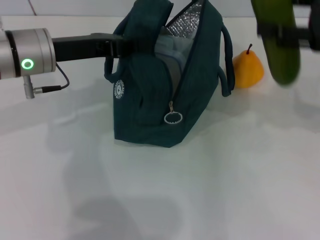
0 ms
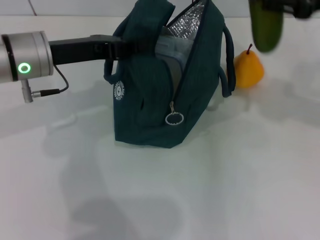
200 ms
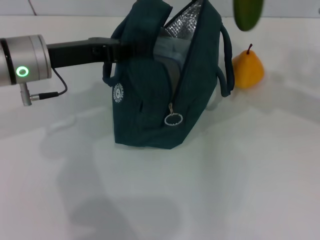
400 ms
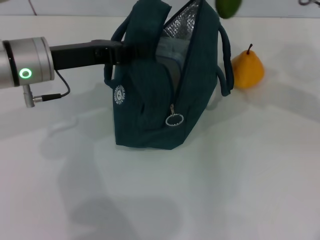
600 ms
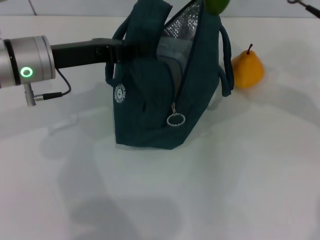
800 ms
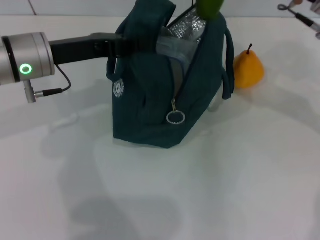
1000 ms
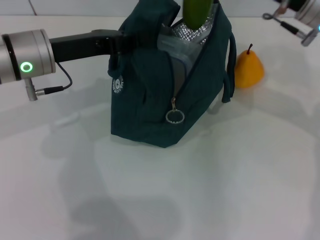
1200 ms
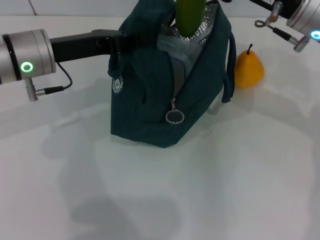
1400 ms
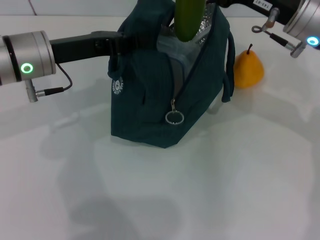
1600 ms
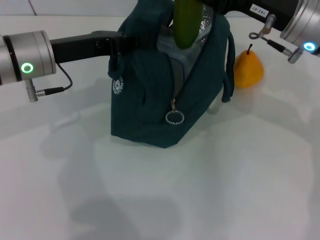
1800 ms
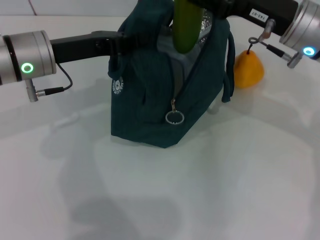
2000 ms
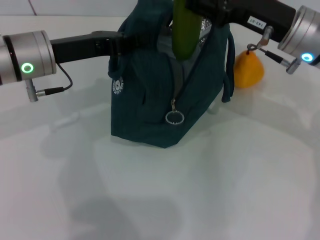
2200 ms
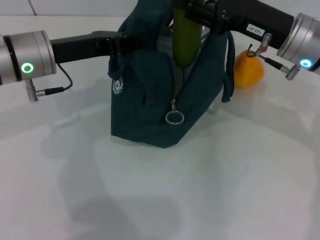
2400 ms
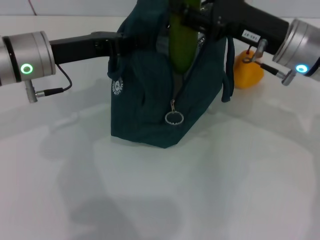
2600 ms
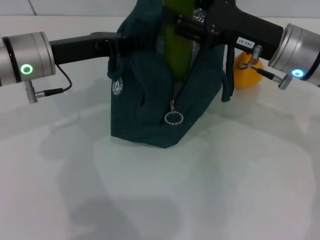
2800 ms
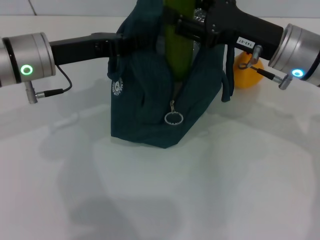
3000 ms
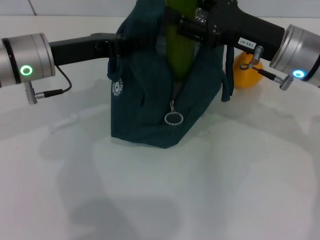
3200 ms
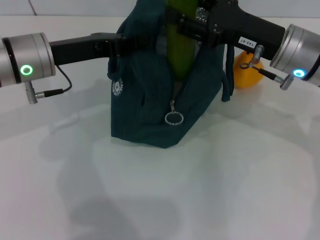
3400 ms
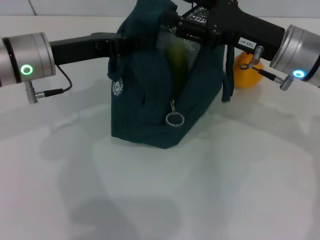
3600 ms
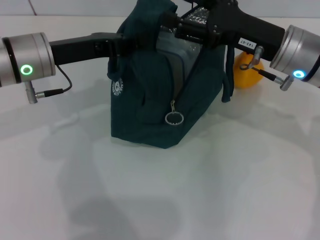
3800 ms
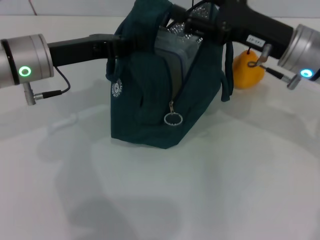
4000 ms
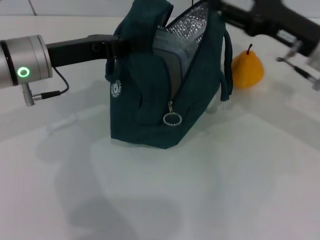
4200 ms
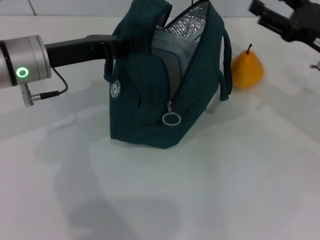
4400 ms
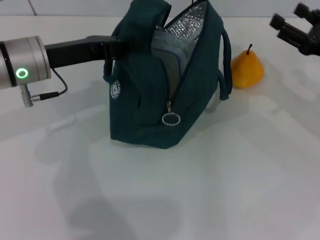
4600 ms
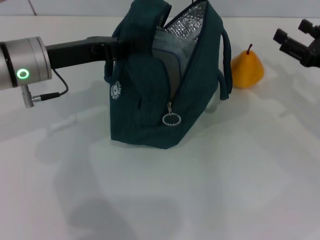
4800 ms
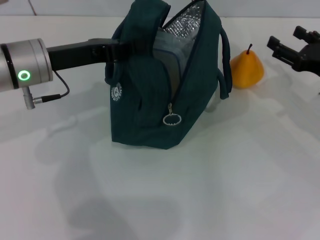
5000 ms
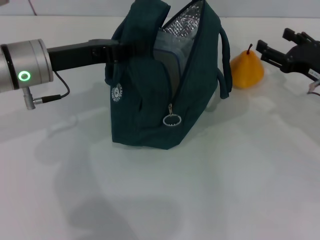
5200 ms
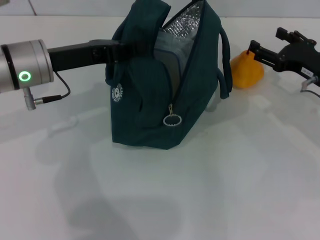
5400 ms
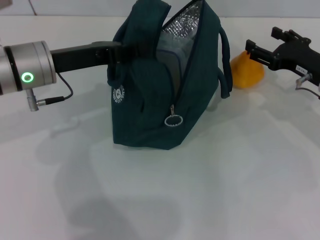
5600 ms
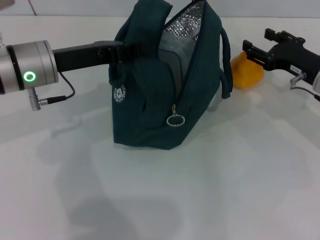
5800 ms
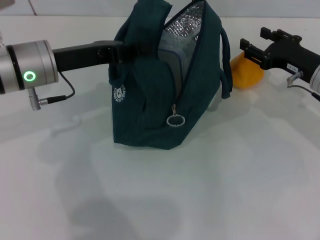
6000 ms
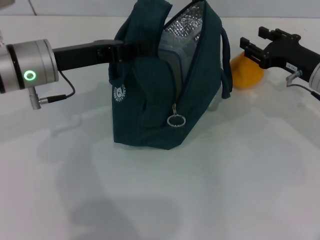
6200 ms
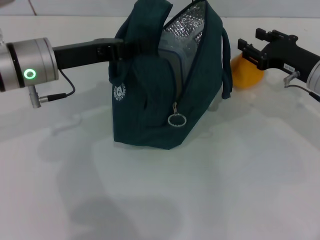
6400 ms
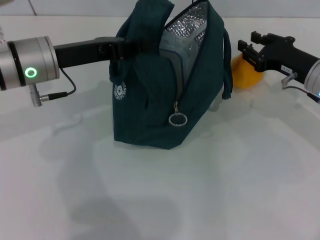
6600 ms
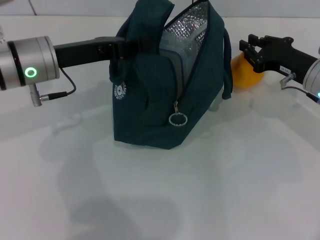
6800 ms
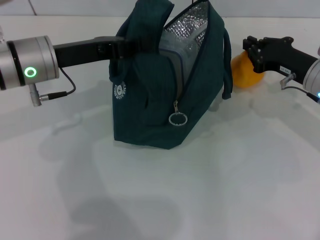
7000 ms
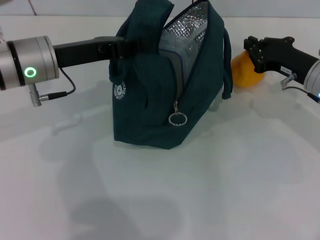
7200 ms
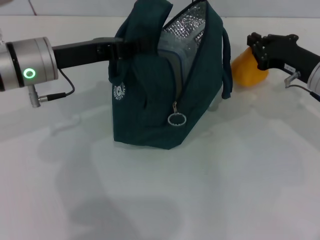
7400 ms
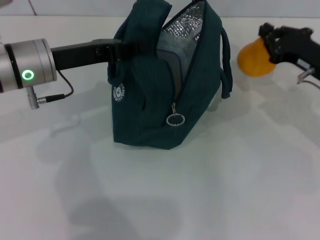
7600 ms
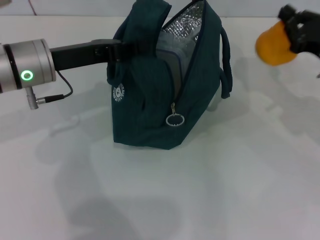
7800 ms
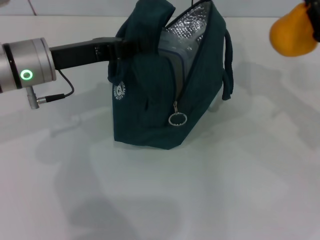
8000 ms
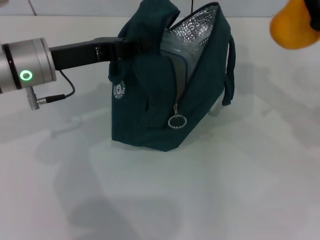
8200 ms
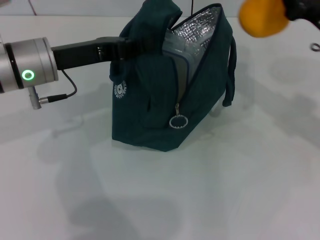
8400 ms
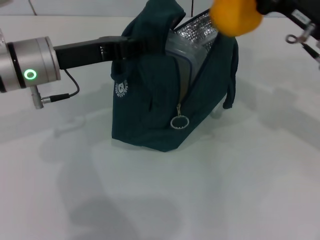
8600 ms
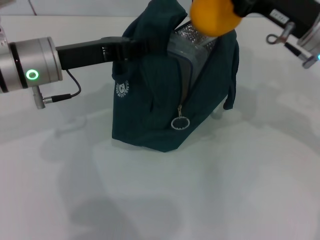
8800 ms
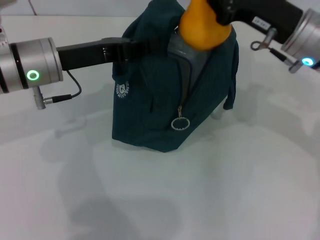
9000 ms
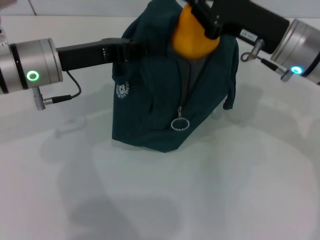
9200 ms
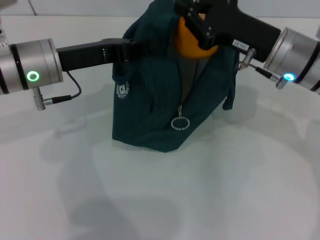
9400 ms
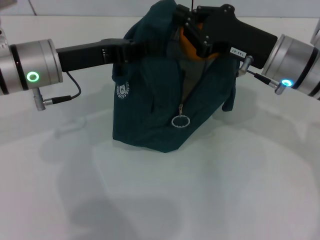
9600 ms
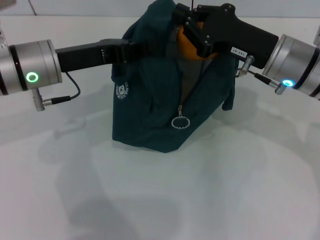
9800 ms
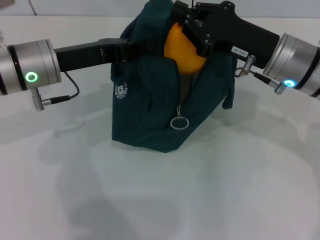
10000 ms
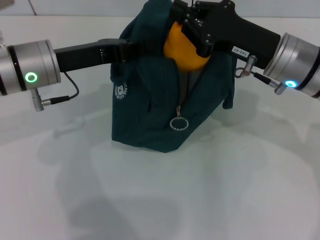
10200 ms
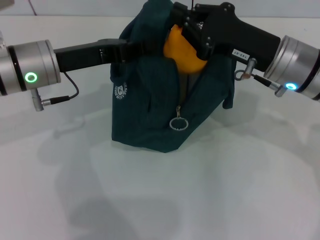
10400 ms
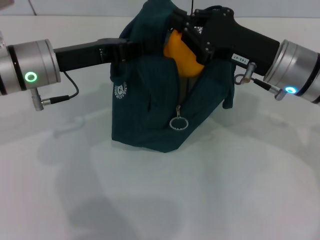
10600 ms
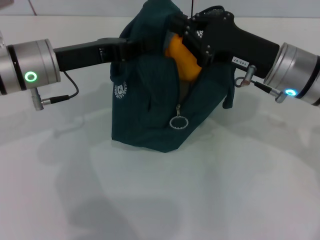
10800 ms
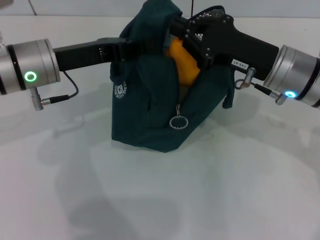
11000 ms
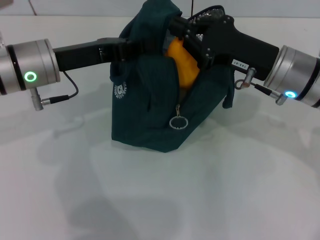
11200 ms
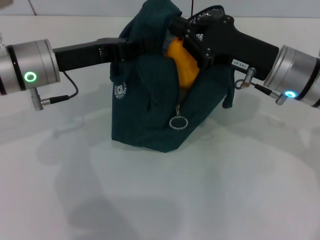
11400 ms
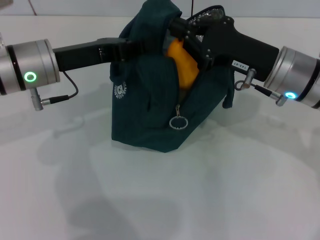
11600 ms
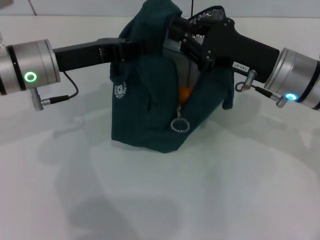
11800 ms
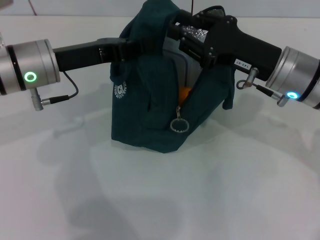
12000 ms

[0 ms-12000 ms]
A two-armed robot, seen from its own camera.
Step, 0 ms to 3800 ms: Put the cucumber into the lunch bag with your right hand.
Step, 4000 ms to 7000 ms: Grab the pear with your right hand.
0 ms to 1600 ms: The right gripper moves to the left, downward and forward, approximately 15 cm.
1600 ms to 3000 ms: The grippers move only a little.
3000 ms to 4400 ms: The right gripper heads to the right, covering about 10 cm.
4400 ms to 6000 ms: The right gripper shifts by about 5 cm.
6000 ms to 7600 ms: The right gripper closes.
7600 ms to 9000 ms: The right gripper heads to the left and upward, covering about 10 cm.
9000 ms to 10400 ms: The grippers move only a little.
10400 ms to 12000 ms: Neither gripper changes place.

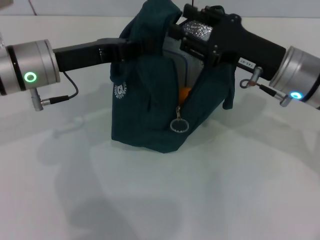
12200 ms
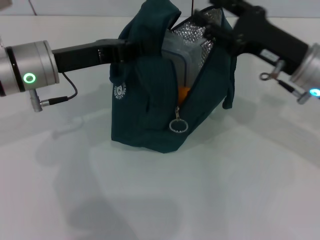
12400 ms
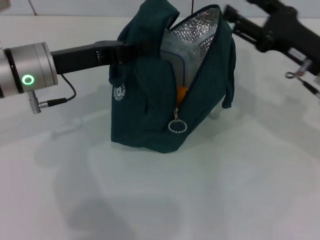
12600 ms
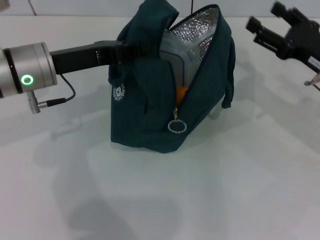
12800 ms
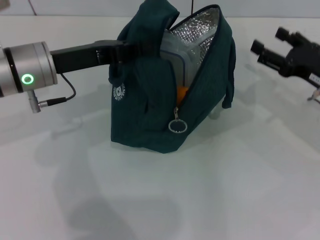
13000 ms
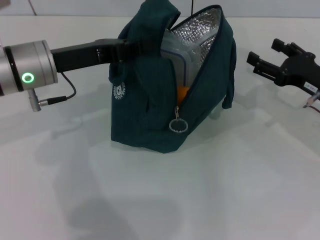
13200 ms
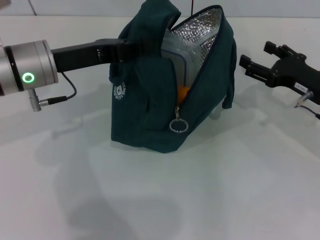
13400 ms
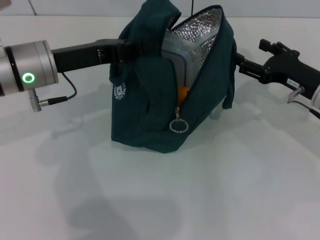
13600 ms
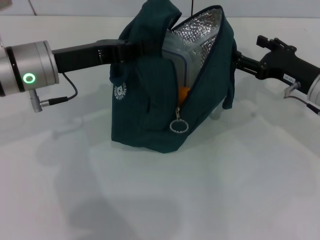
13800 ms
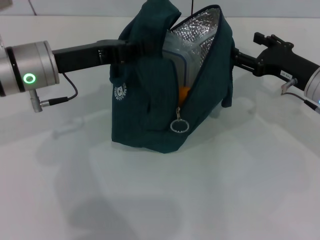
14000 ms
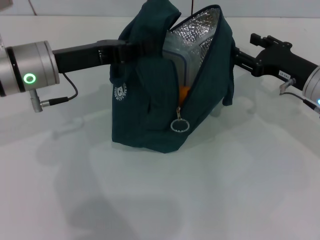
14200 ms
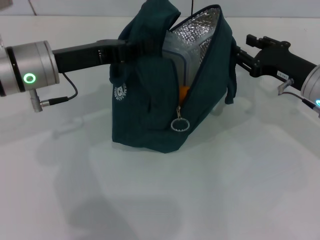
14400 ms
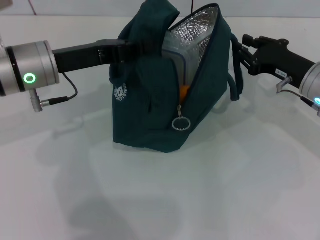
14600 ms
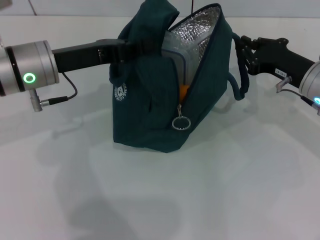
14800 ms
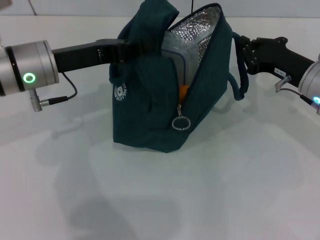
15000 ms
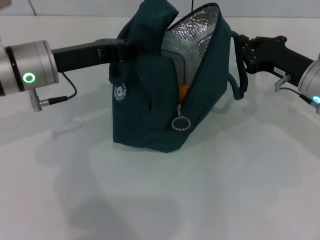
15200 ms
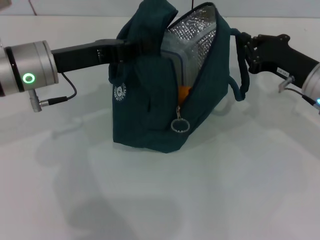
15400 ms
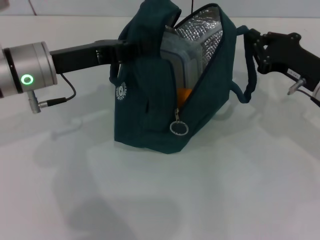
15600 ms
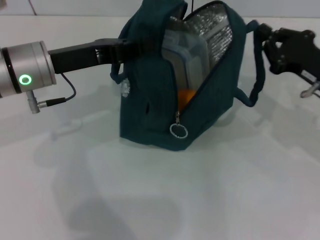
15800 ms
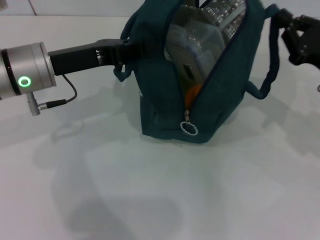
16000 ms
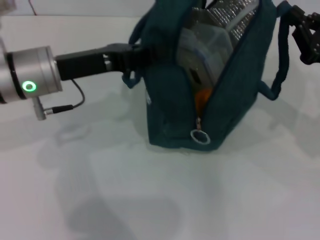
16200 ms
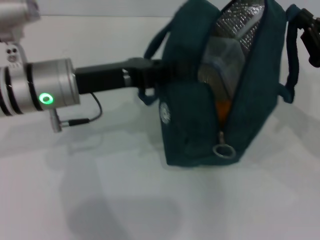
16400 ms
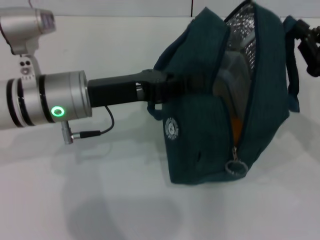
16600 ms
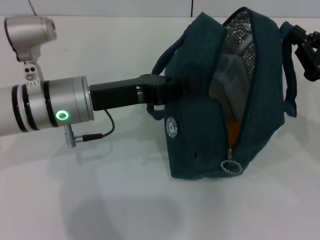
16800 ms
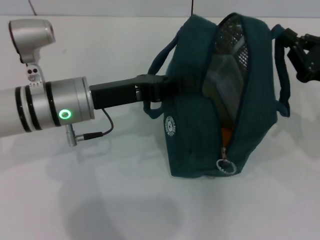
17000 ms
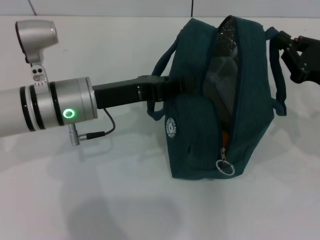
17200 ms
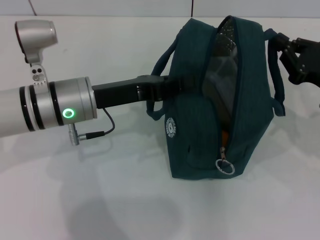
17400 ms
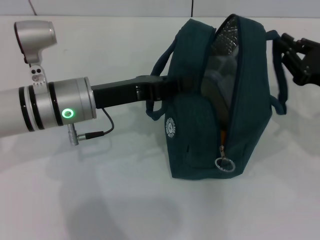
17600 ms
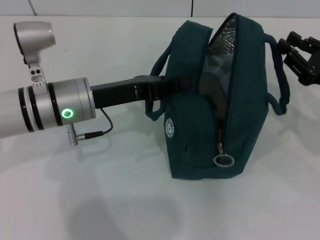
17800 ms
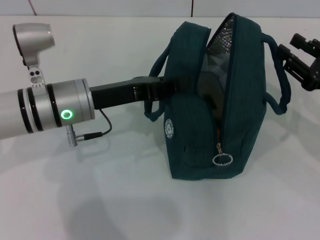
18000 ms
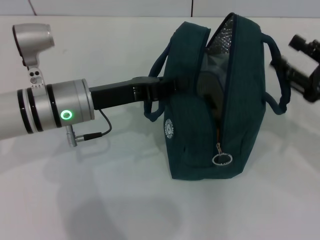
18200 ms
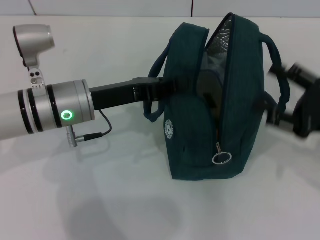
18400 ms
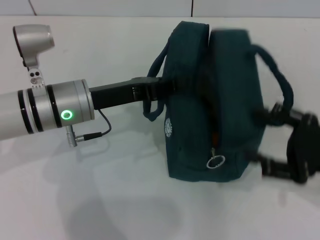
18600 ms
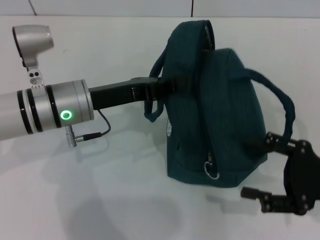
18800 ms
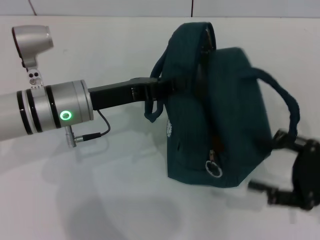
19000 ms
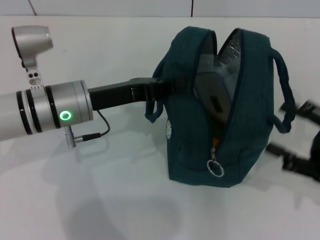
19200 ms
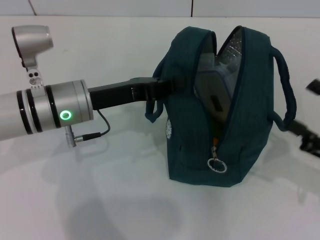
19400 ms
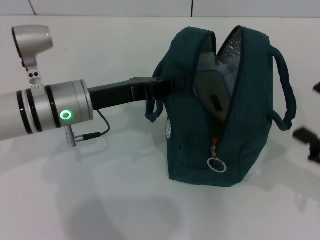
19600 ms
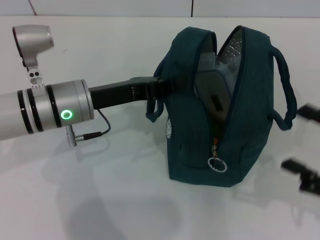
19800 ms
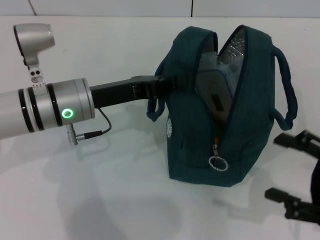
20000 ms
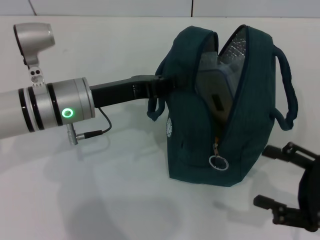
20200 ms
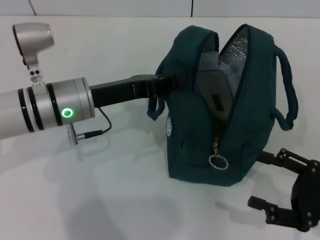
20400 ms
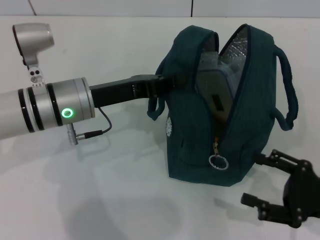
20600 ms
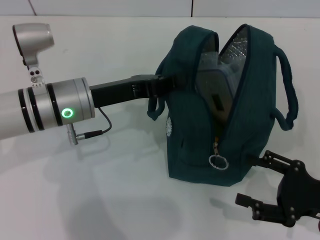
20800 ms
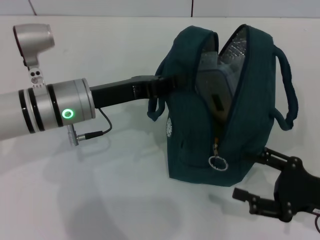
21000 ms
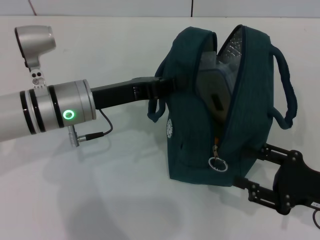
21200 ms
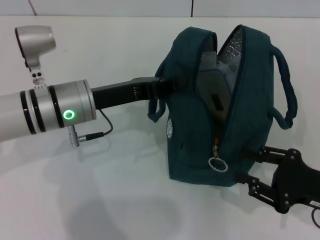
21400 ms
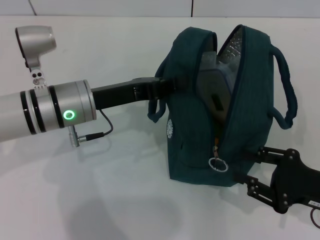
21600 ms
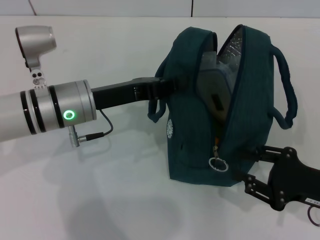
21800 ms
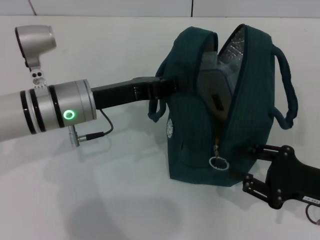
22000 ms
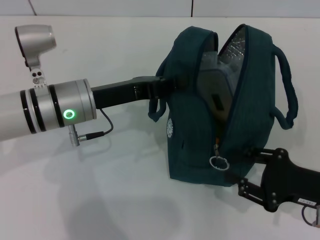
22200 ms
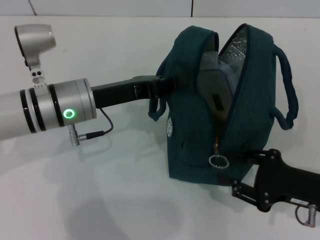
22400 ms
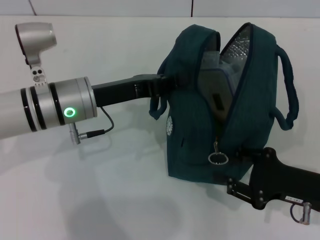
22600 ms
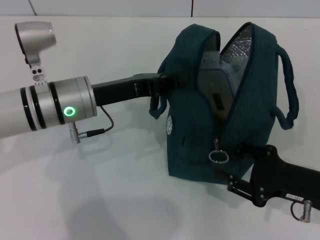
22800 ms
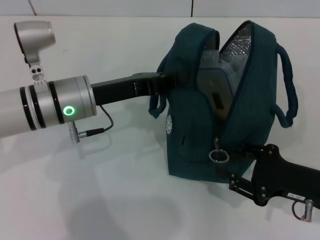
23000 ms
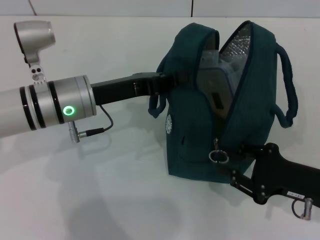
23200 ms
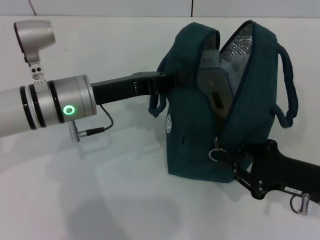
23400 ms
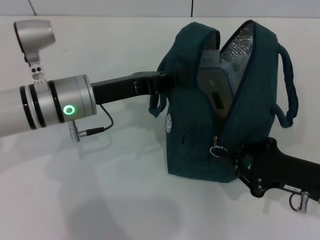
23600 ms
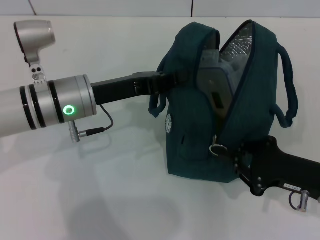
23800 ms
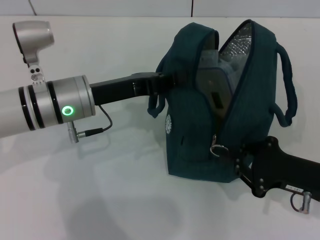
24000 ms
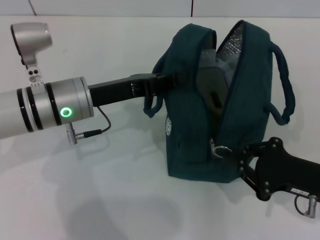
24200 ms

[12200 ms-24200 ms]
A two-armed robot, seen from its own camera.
Step, 12800 ms to 18000 ms: Hold the lunch bag with your right hand.
12200 ms to 13800 ms: The right gripper moves to the right and downward, about 10 cm, and opens its fingers.
13800 ms to 15200 ms: The right gripper closes.
15200 ms to 16600 ms: The left gripper changes place by roughly 5 cm, while the right gripper shifts approximately 10 cm to the right and backward.
16600 ms to 18200 ms: The right gripper opens up.
18200 ms to 19800 ms: The right gripper goes some 10 cm backward, and opens its fingers.
19800 ms to 21200 ms: The right gripper changes place by about 5 cm.
21200 ms to 22600 ms: The right gripper closes.
22600 ms to 24200 ms: The right gripper closes.
